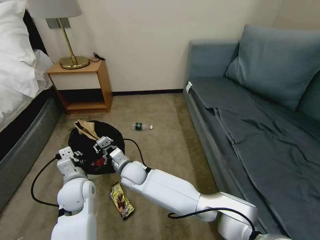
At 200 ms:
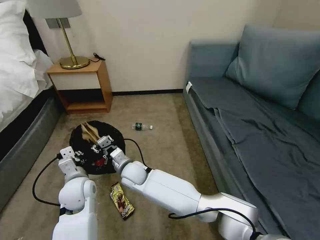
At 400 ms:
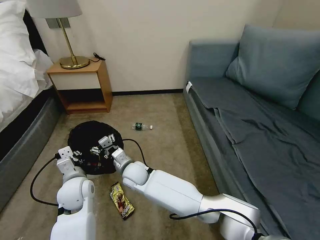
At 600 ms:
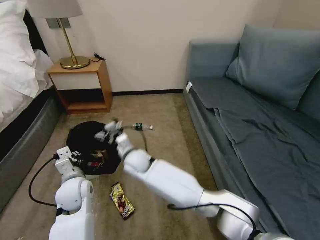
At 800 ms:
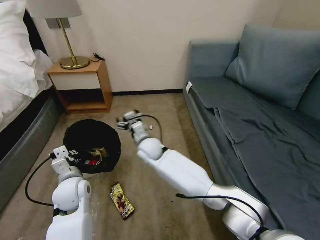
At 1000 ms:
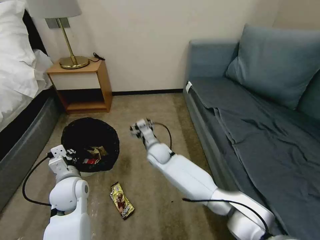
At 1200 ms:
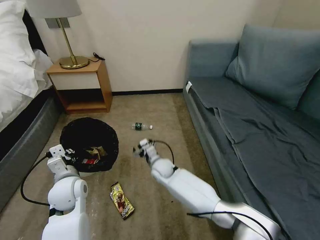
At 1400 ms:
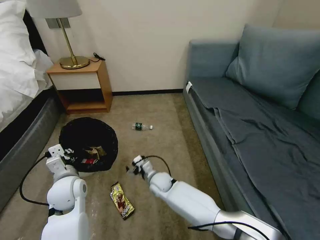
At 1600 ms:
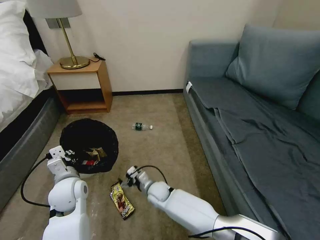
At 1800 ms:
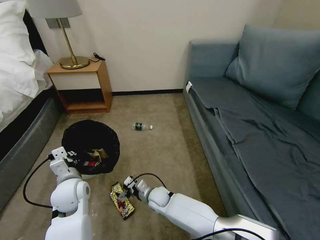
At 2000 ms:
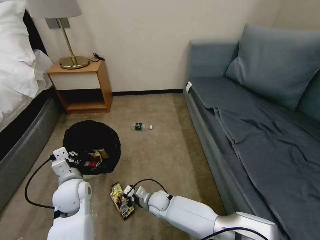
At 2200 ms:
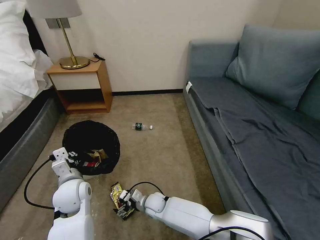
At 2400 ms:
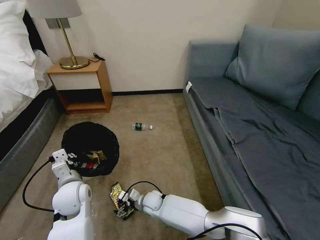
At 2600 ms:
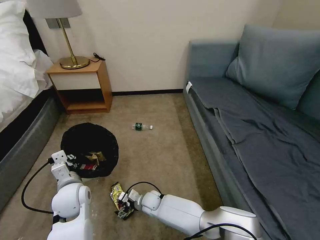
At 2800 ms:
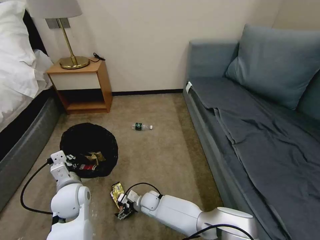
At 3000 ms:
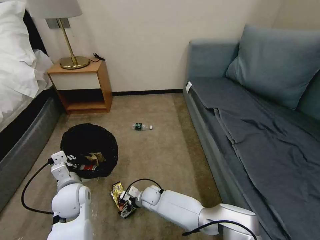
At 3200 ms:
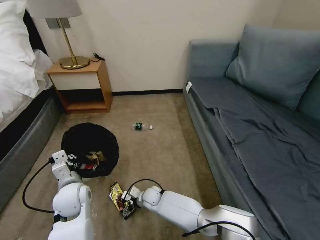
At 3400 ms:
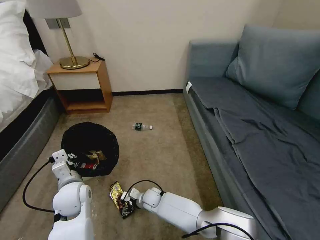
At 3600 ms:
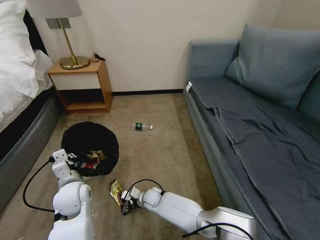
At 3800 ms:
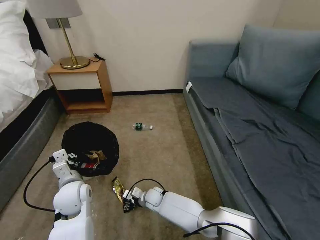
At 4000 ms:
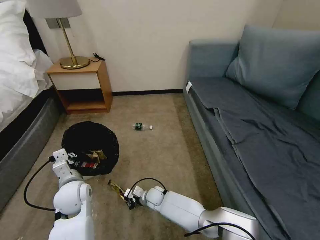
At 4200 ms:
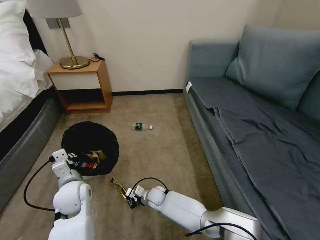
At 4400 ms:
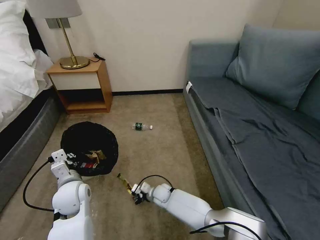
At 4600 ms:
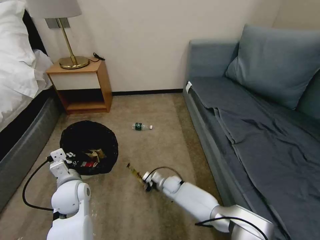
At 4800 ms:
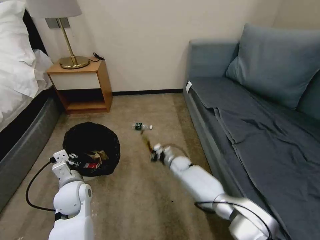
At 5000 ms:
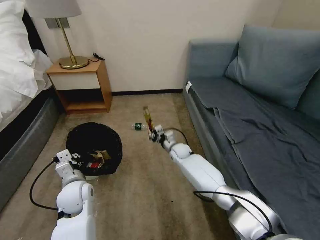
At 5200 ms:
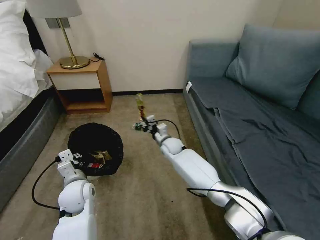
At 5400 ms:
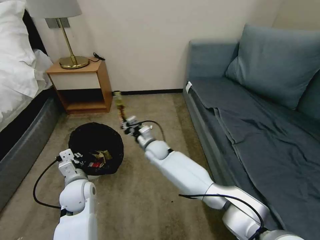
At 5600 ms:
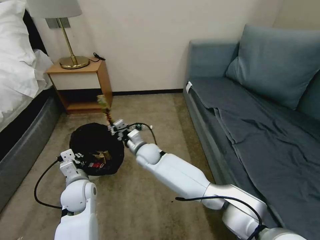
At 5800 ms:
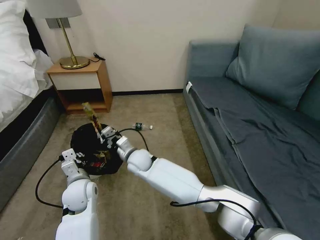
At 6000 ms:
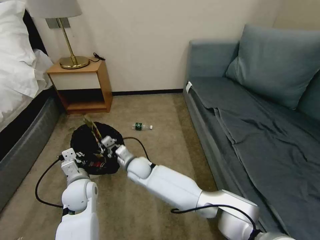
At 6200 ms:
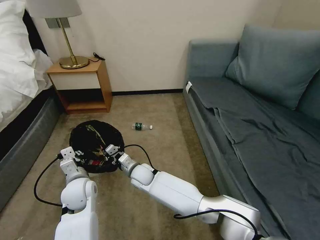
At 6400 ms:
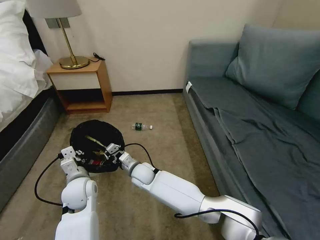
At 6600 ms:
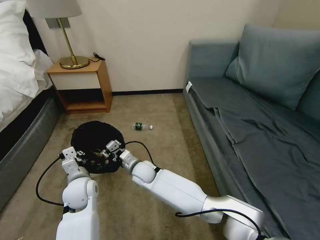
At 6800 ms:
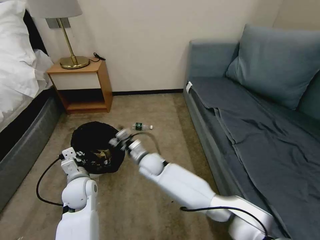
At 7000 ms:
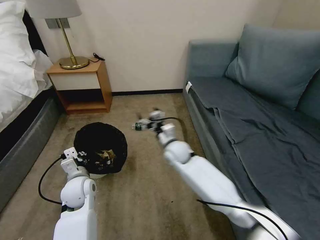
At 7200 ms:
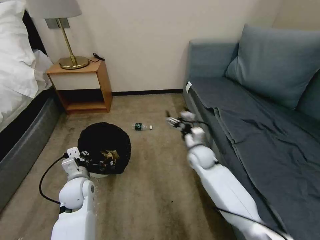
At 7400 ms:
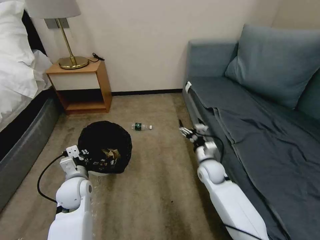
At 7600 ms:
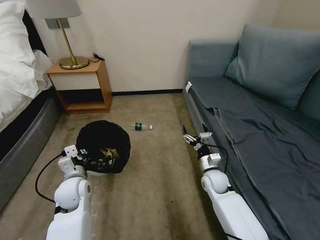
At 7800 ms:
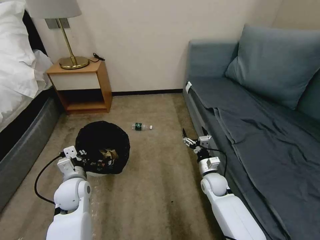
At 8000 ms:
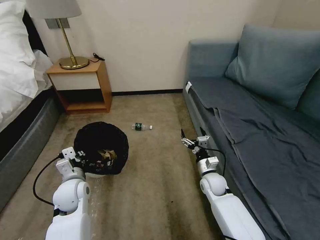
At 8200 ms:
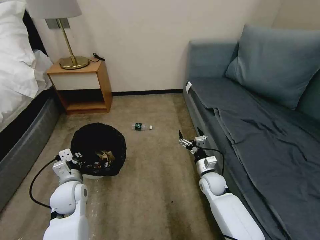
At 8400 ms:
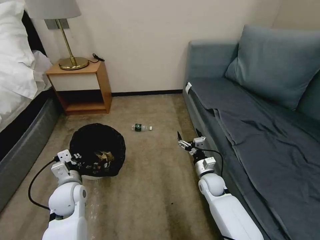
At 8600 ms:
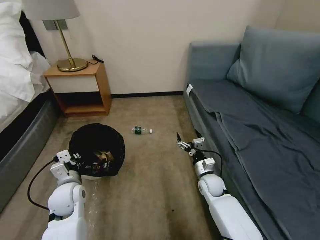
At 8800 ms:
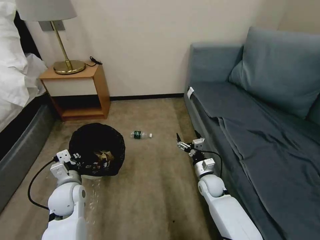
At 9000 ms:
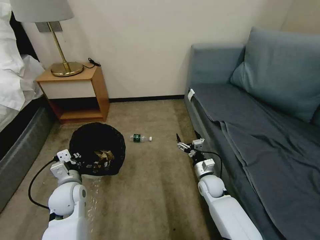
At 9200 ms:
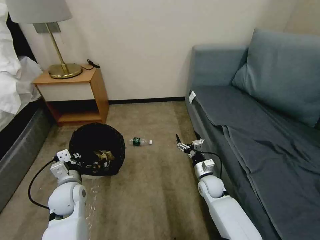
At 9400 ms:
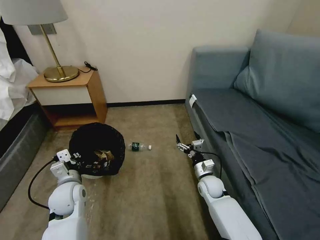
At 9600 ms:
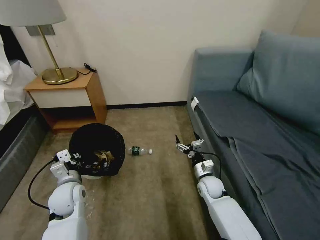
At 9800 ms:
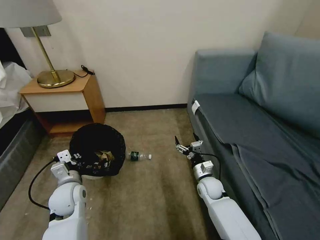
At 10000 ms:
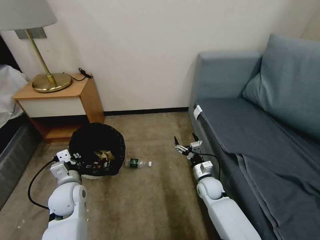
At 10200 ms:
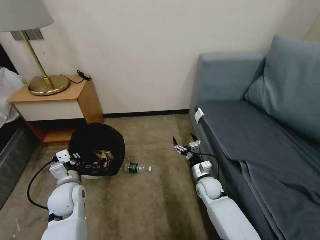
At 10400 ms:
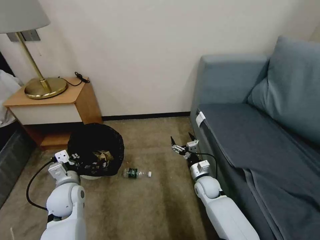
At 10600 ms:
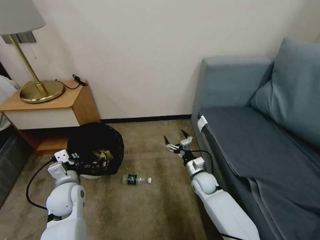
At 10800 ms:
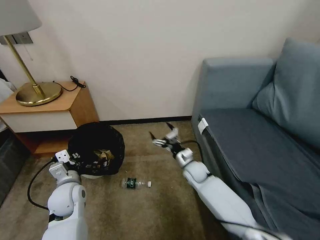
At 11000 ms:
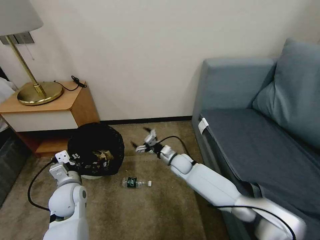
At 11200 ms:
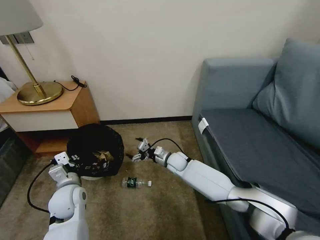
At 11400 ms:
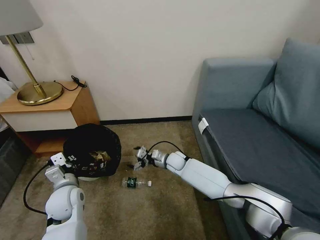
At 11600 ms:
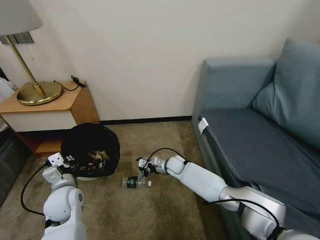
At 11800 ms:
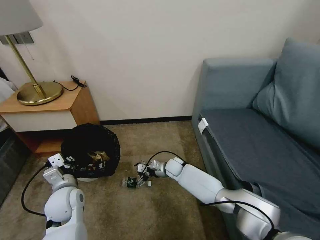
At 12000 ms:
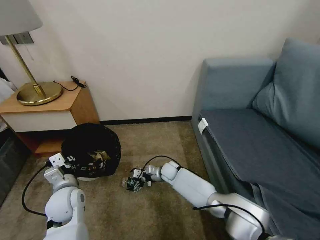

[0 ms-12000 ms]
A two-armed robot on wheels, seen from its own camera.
Task of the whole recording: Pick up the trash bin, then pick up the garbage on the floor and place it into the trash bin.
0 ms to 1600 ms: The right gripper goes some 15 cm downward and to the right, and opens.
1600 ms to 3000 ms: The right gripper moves downward, approximately 5 cm.
3000 ms to 4400 ms: The right gripper shifts some 5 cm to the right, and closes its fingers.
4400 ms to 6000 ms: The right gripper is displaced upward and to the left by approximately 20 cm.
6000 ms to 7600 ms: The right gripper moves to the right, about 30 cm, and opens up.
10400 ms to 12000 ms: The right gripper shifts about 15 cm to the left and forward.

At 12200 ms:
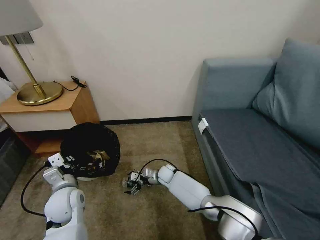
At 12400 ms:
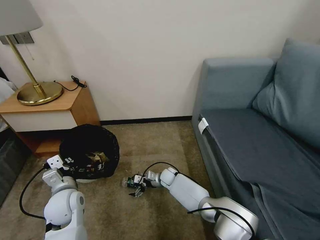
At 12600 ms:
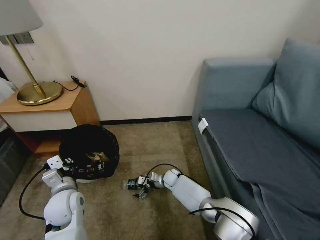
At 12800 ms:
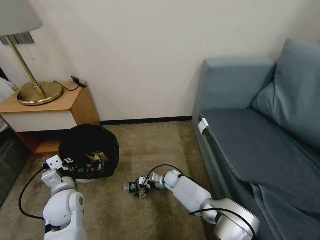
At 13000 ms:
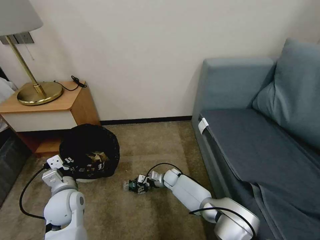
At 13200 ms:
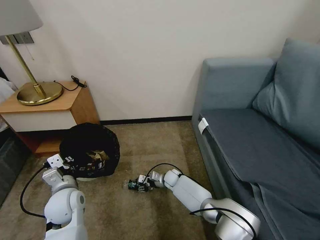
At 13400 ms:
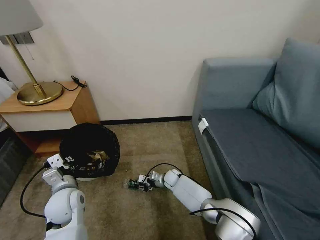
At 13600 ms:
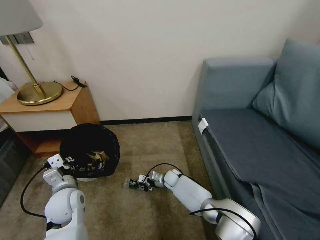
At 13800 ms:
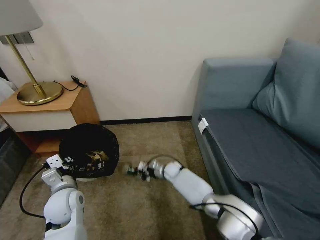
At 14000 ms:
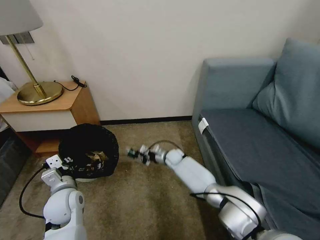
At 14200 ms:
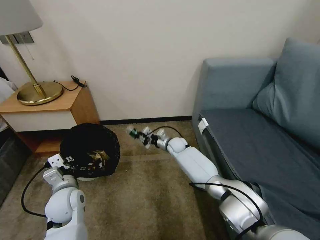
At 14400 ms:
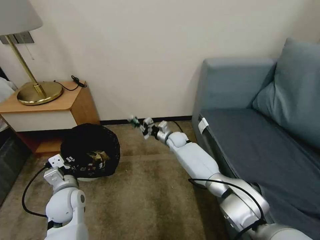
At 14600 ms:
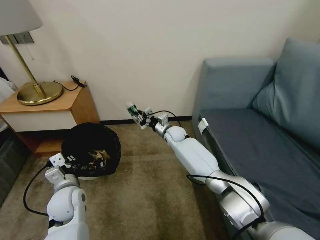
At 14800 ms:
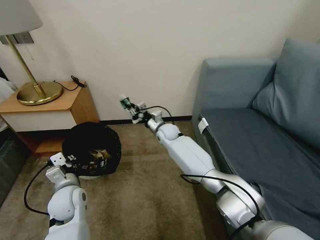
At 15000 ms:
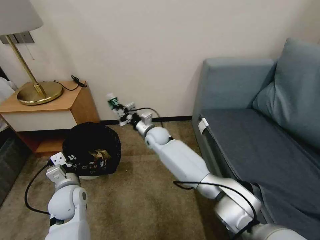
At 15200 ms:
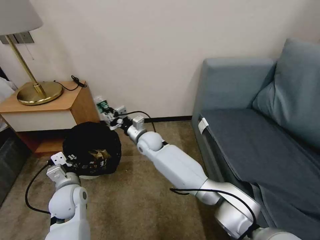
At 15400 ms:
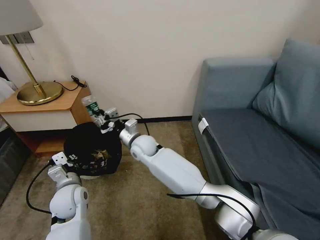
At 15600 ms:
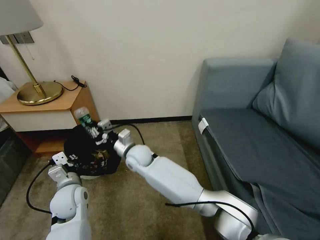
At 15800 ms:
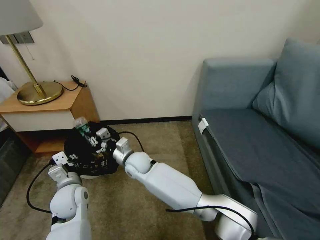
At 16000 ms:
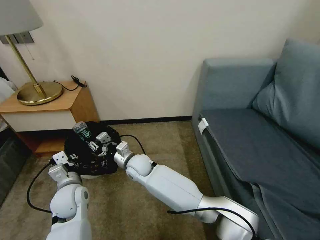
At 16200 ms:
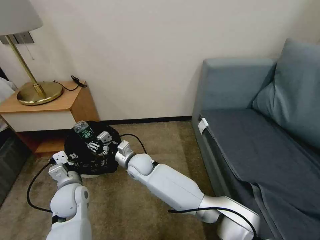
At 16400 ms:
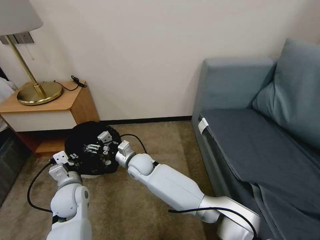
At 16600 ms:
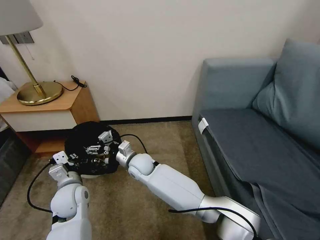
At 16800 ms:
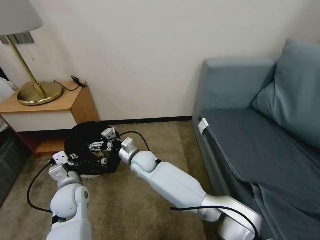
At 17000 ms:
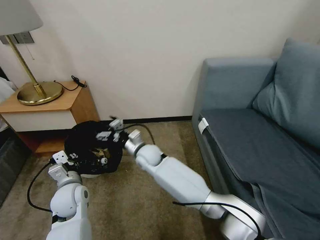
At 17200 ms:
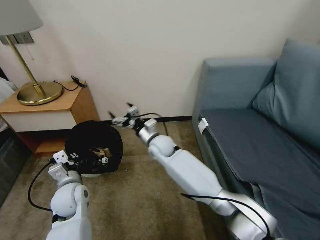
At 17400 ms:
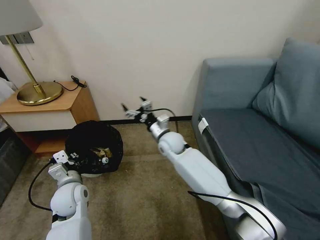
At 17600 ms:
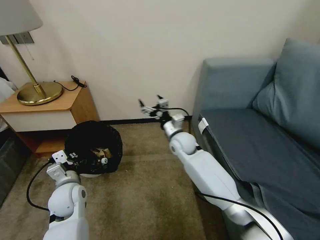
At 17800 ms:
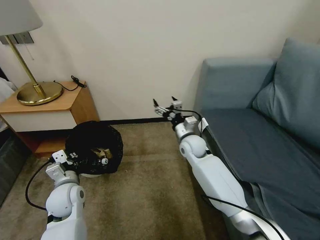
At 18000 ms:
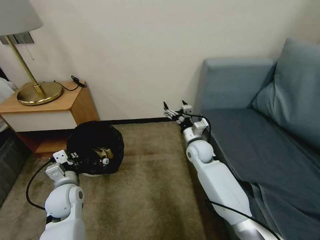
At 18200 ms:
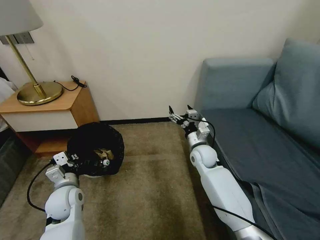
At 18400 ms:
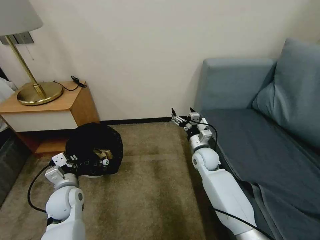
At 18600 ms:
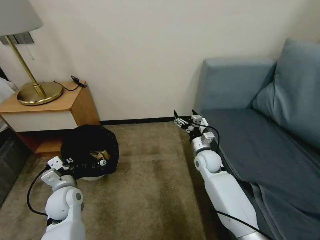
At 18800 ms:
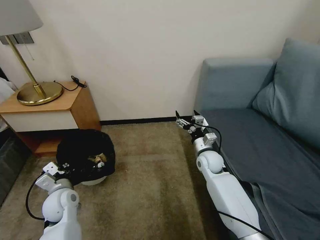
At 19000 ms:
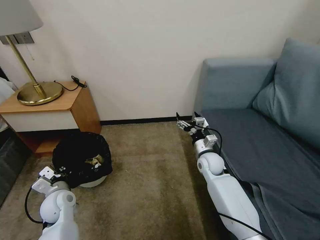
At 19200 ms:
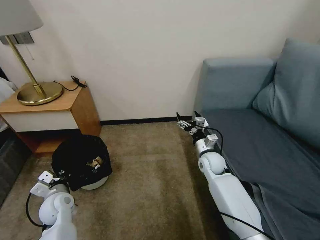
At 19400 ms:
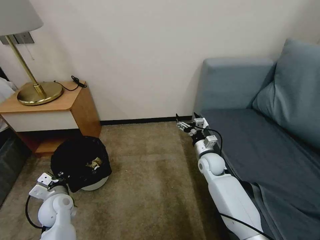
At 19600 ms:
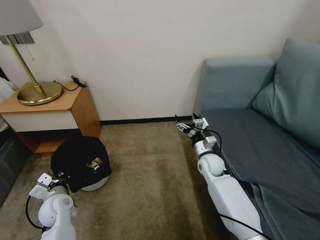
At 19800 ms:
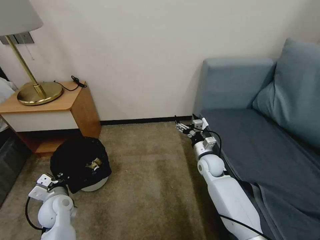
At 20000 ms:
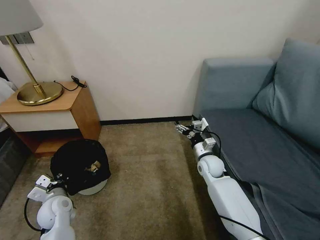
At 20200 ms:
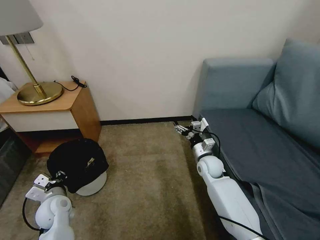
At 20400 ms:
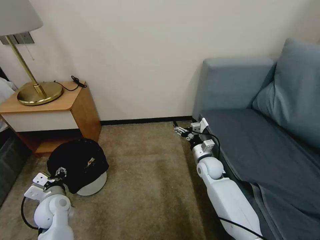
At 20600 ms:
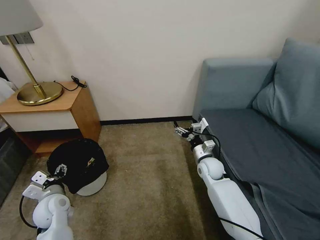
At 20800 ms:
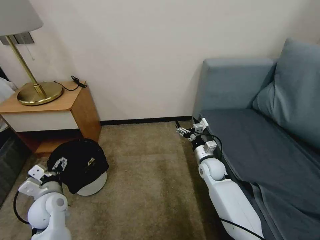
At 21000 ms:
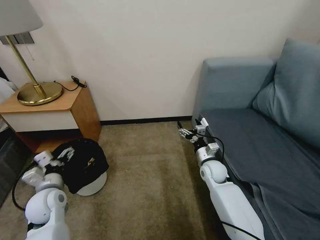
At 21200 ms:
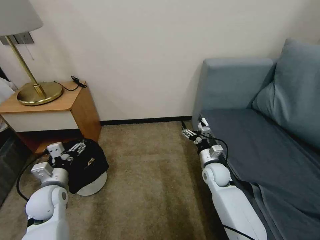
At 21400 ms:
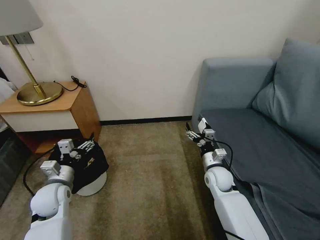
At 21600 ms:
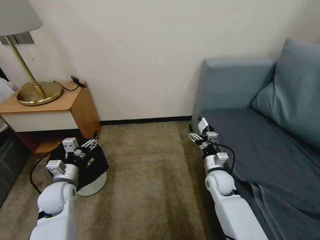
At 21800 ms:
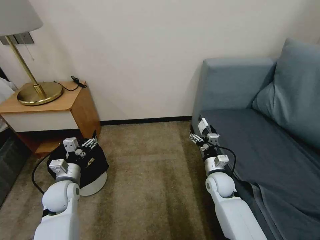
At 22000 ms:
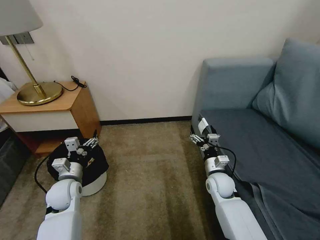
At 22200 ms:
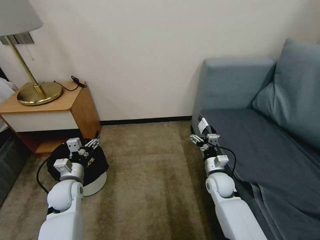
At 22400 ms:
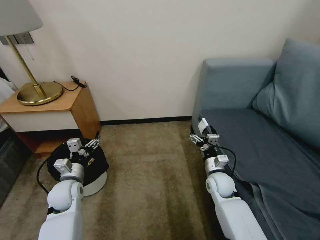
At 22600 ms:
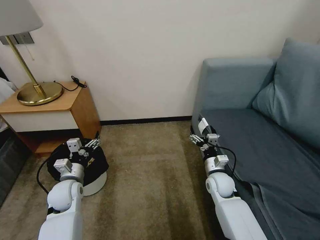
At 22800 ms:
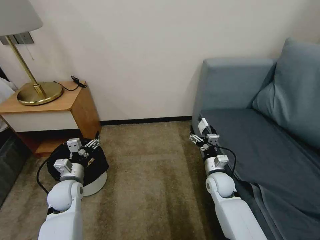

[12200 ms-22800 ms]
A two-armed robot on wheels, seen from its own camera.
Task of the whole recording: Pick up the trash bin, then pick up the garbage on the floor and place it into the trash bin.
12200 ms to 13800 ms: The right gripper closes its fingers.
13800 ms to 15200 ms: The right gripper goes approximately 25 cm upward and to the left.
15200 ms to 16800 ms: The right gripper shifts roughly 10 cm backward, and opens its fingers.
16800 ms to 18200 ms: The right gripper travels to the right by about 25 cm.
18200 ms to 19800 ms: The right gripper shifts by some 5 cm. Meanwhile the left gripper moves downward, roughly 5 cm.
19800 ms to 21200 ms: The left gripper moves upward, about 5 cm, and opens its fingers.
21200 ms to 22800 ms: The left gripper shifts by roughly 5 cm.
